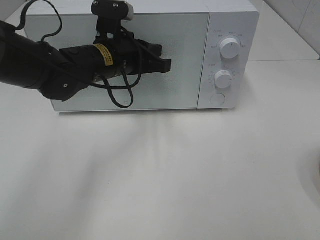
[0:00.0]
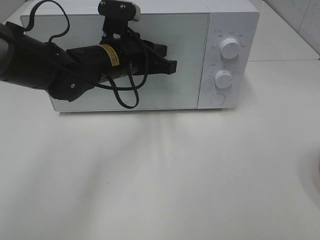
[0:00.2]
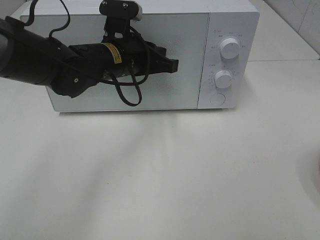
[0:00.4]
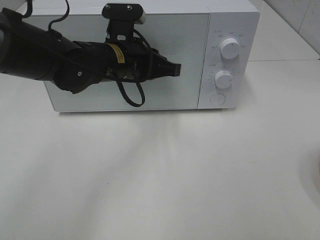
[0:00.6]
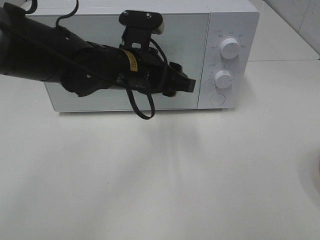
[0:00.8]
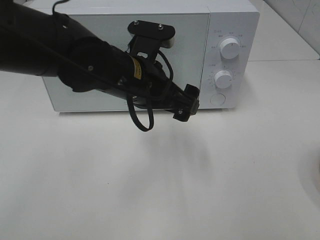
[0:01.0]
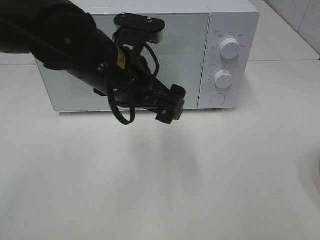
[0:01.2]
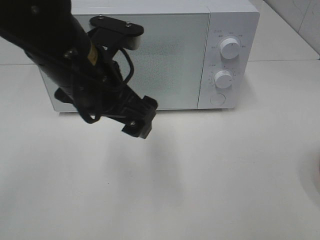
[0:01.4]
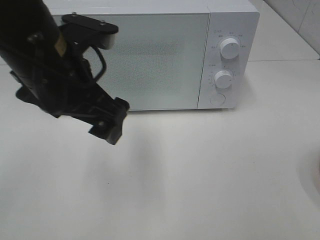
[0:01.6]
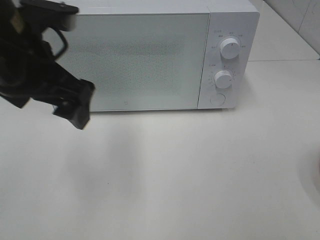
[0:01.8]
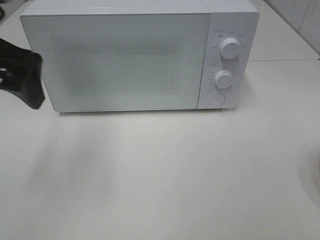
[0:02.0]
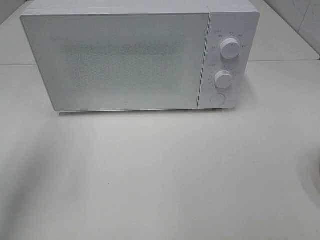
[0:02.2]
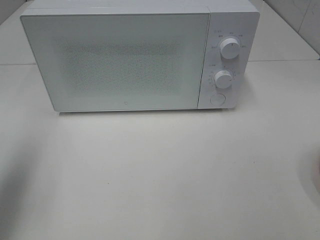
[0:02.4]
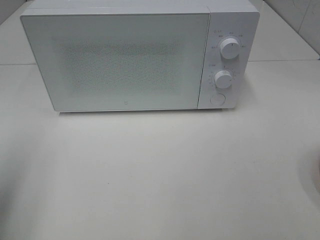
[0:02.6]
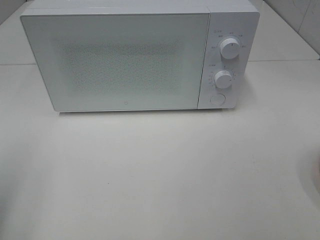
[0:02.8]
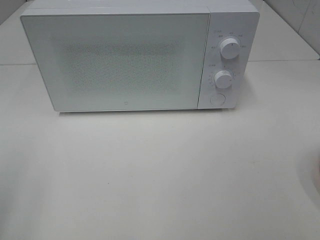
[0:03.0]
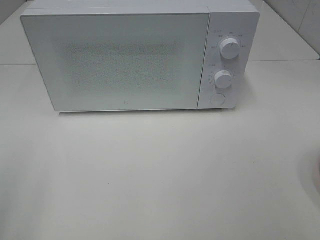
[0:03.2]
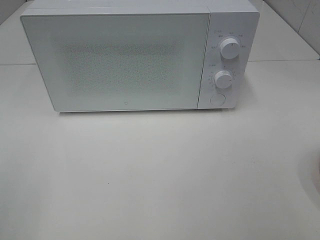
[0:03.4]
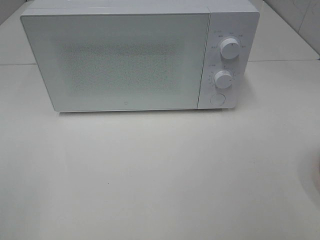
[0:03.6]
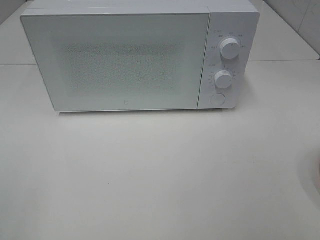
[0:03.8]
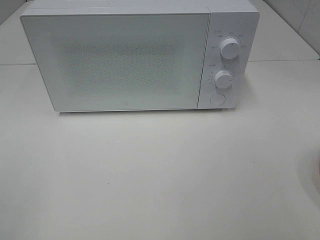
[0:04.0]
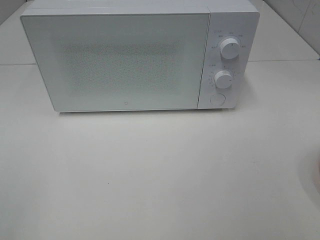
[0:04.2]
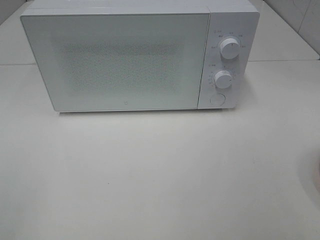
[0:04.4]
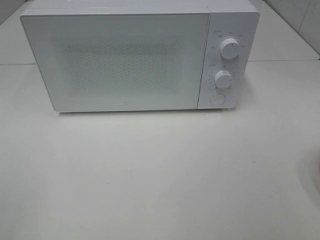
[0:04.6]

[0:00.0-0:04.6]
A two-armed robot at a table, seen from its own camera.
Task of the whole recording: Heat the burger.
0:00.0 to 0:01.6: The left gripper shifts about 15 cm backward and upward, and opens.
0:01.6 to 0:03.0: The left gripper is displaced to the left and backward by approximately 25 cm.
